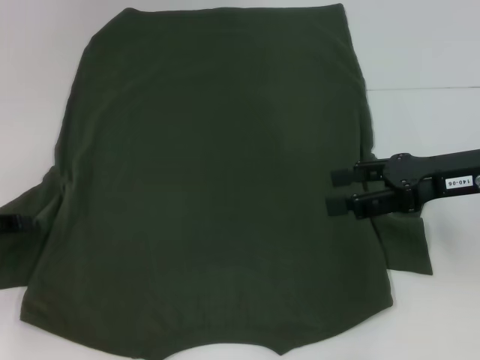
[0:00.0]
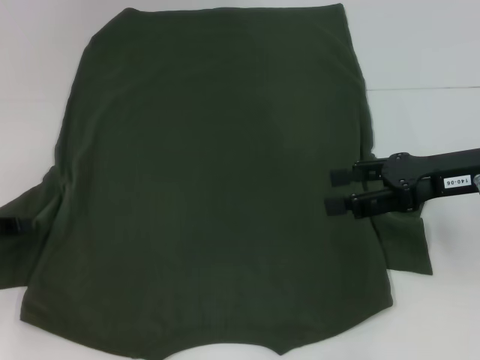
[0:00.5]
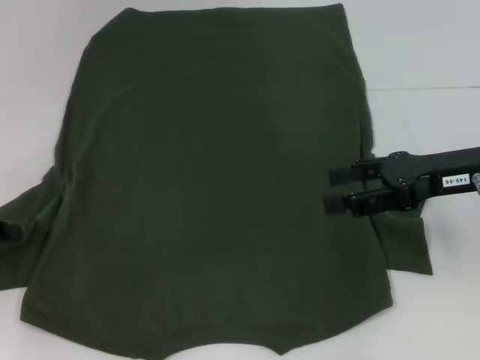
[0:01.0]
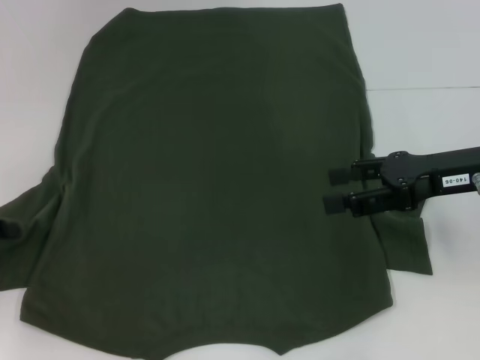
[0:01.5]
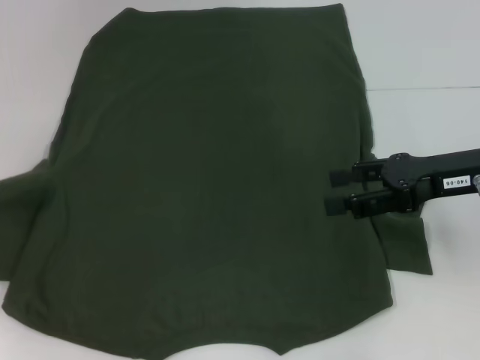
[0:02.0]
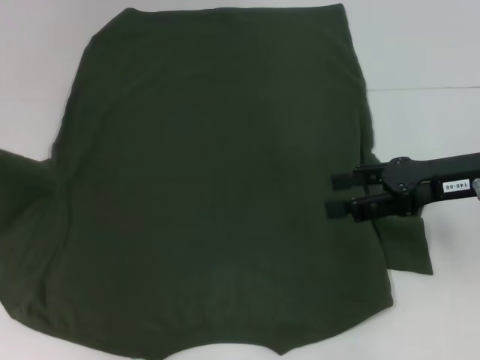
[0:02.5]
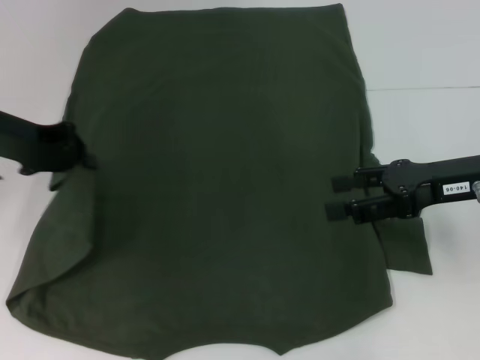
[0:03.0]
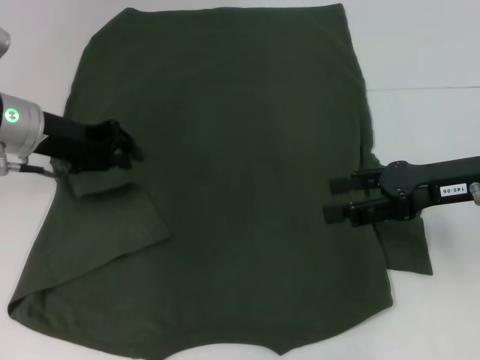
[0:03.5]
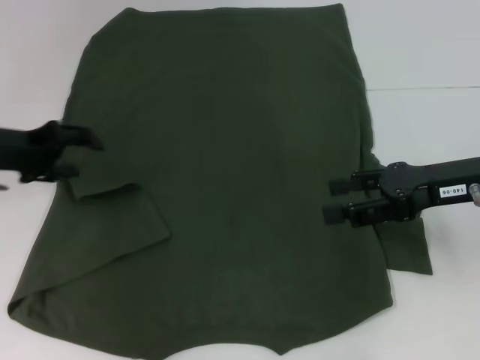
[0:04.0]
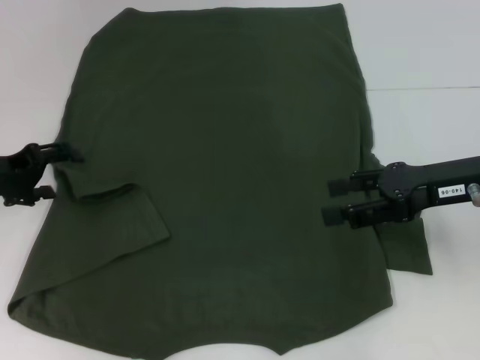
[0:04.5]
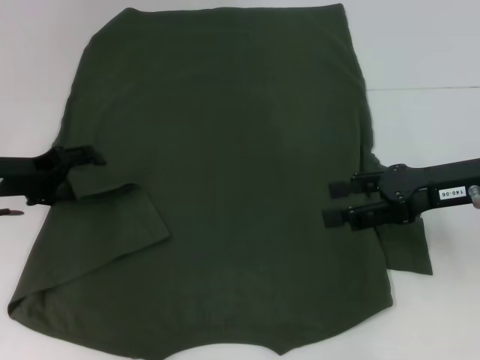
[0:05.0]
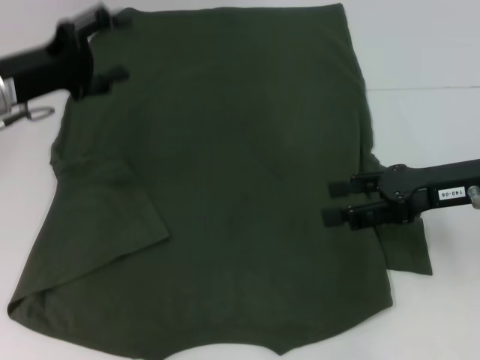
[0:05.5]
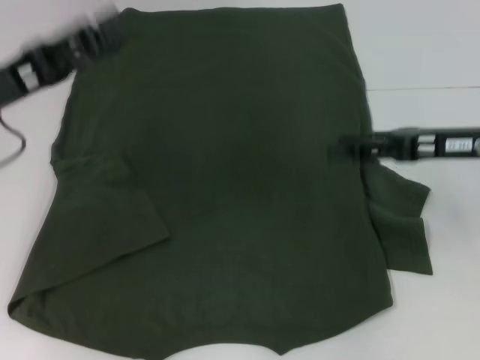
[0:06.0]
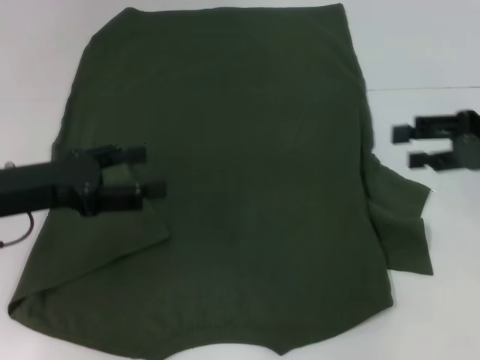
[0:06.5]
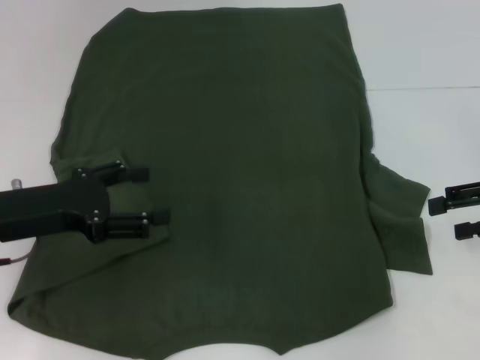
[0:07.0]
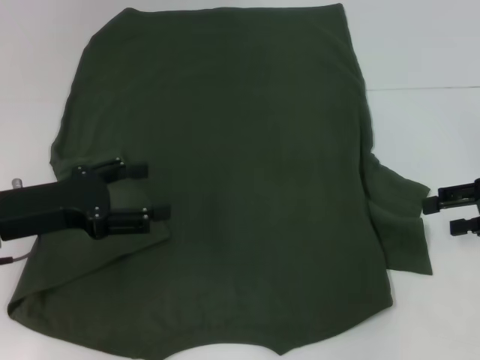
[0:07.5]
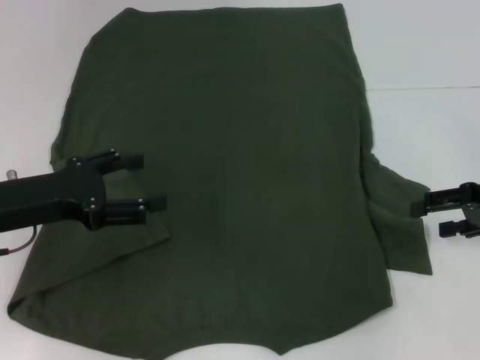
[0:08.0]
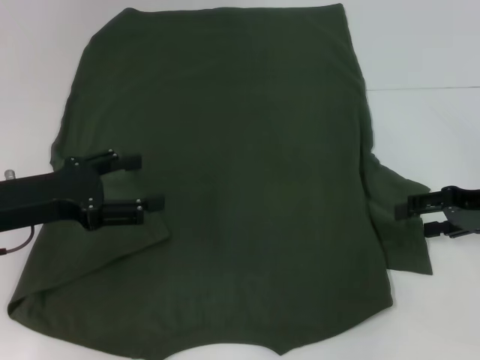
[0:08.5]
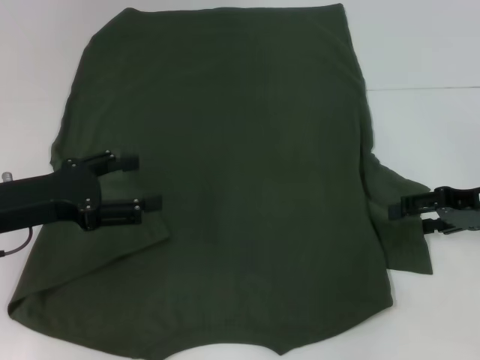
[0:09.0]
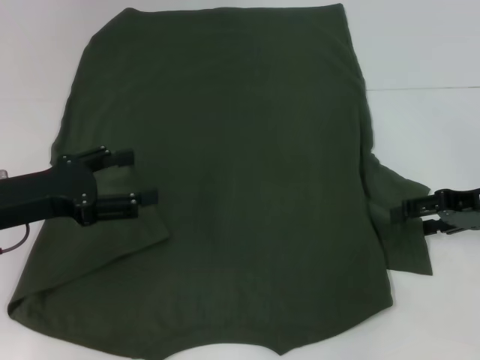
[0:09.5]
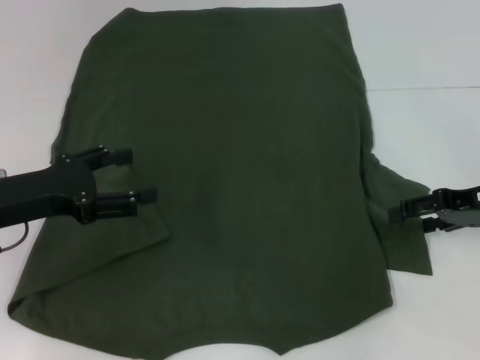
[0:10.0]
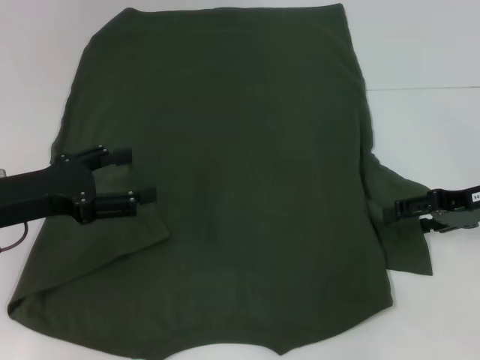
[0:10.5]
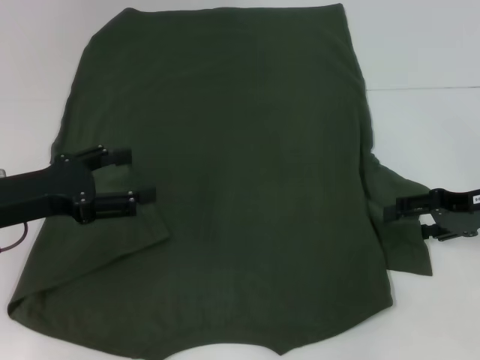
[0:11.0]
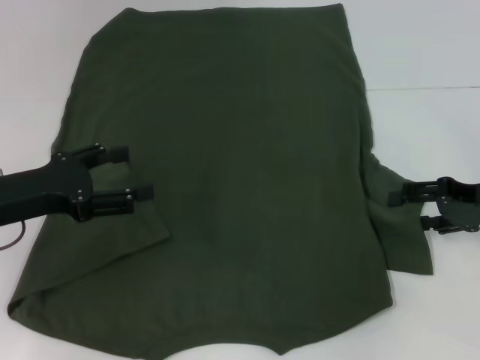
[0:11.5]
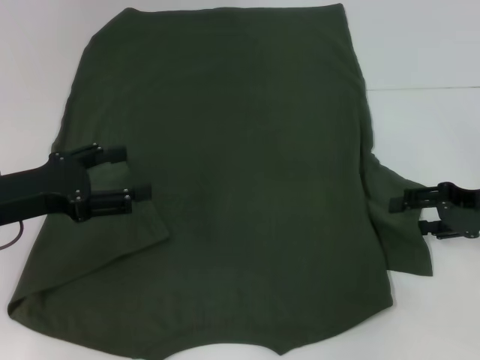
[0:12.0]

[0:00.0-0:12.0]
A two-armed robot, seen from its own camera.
Step, 0:00.0 to 0:05.0: Fold the bottom left sleeve with your left hand.
0:00.0 to 0:02.0: The left gripper shifts by roughly 5 cm, and closes.
0:02.0 to 0:04.0: The left gripper moves to the right and forward, some 15 cm, and opens up.
0:04.0 to 0:06.0: The left gripper shifts roughly 5 cm backward, and opens its fingers.
0:06.0 to 0:08.0: The right gripper moves to the right, about 5 cm, while the left gripper is displaced downward by some 5 cm.
0:08.0 to 0:12.0: The grippers stay close to where they were, moving slightly.

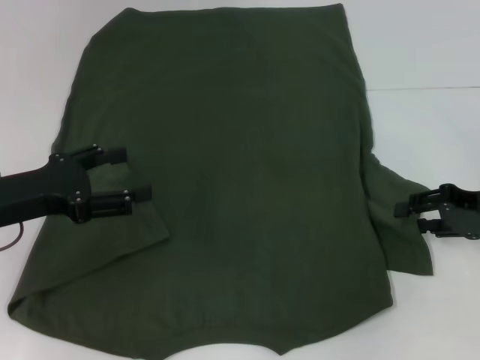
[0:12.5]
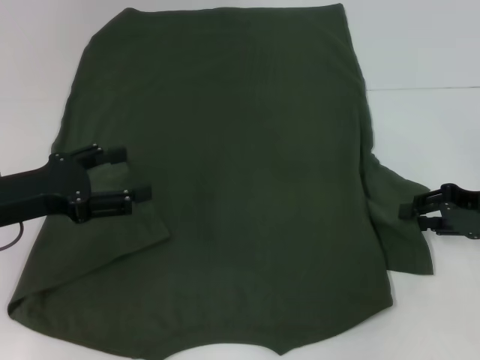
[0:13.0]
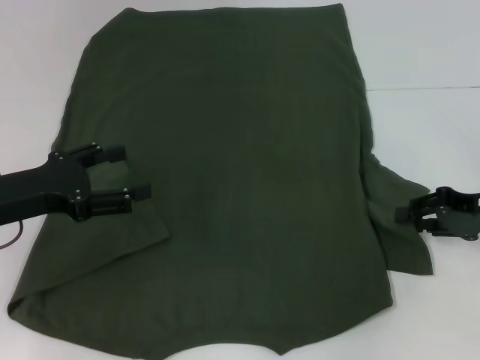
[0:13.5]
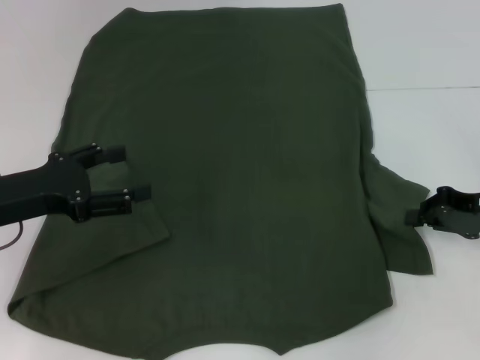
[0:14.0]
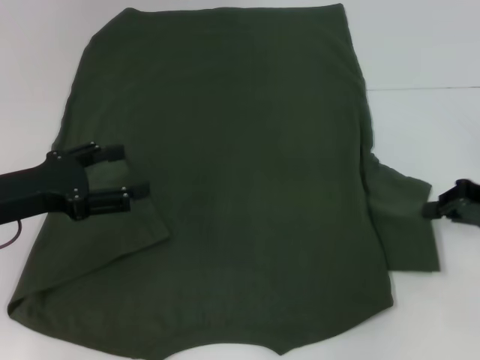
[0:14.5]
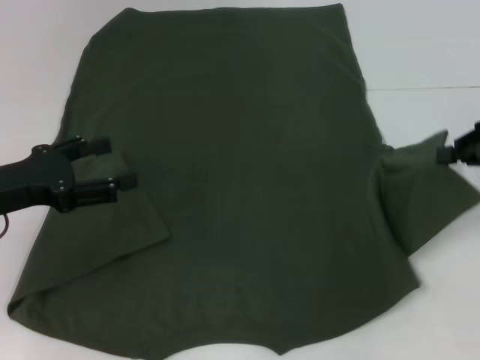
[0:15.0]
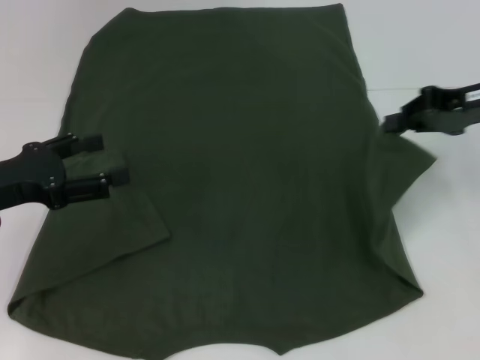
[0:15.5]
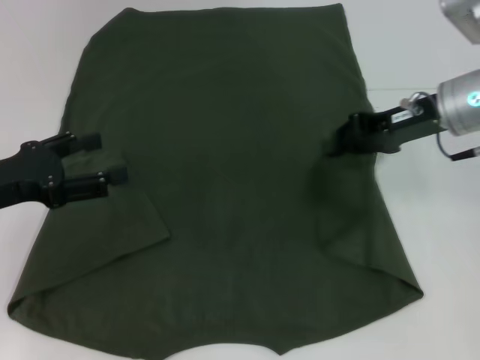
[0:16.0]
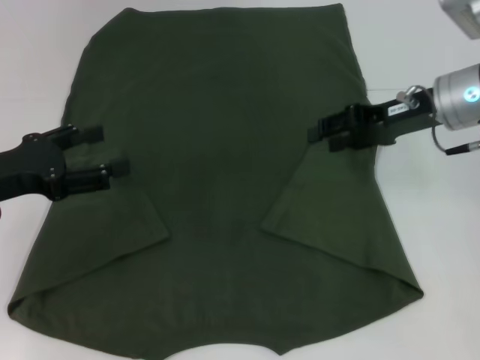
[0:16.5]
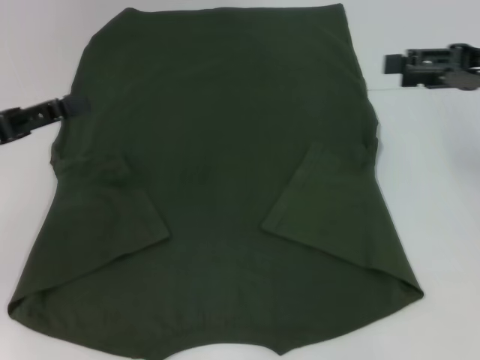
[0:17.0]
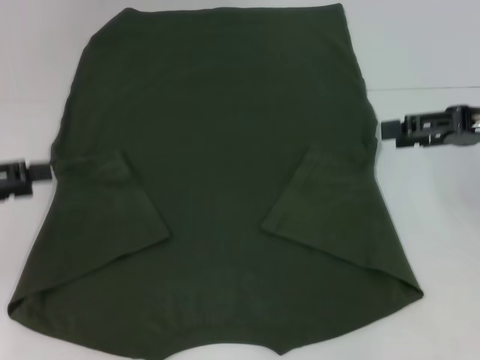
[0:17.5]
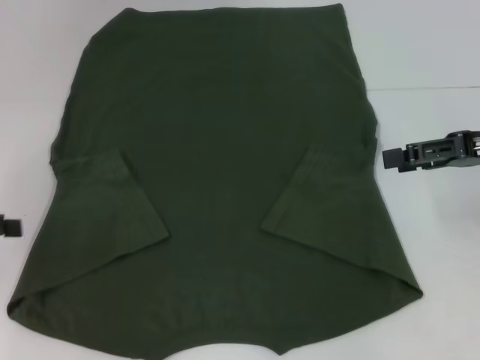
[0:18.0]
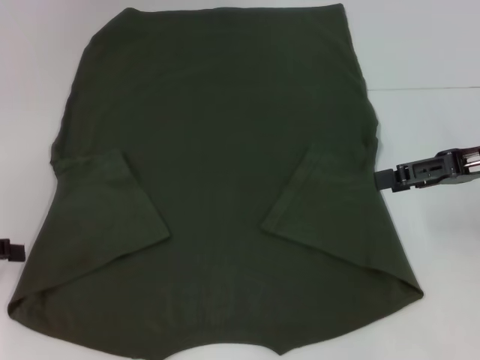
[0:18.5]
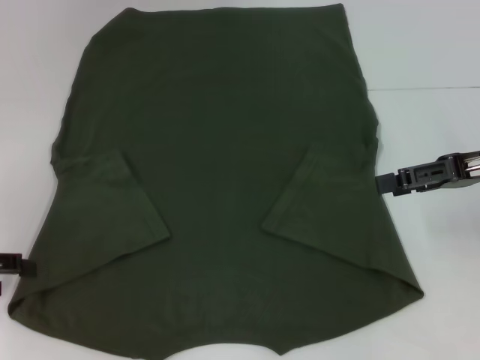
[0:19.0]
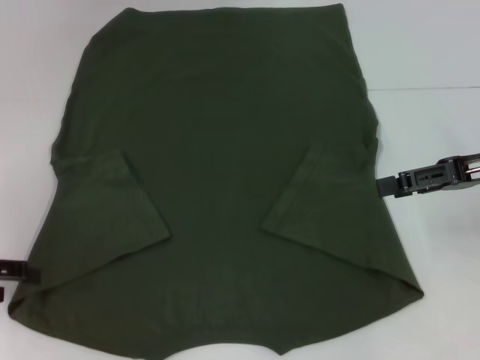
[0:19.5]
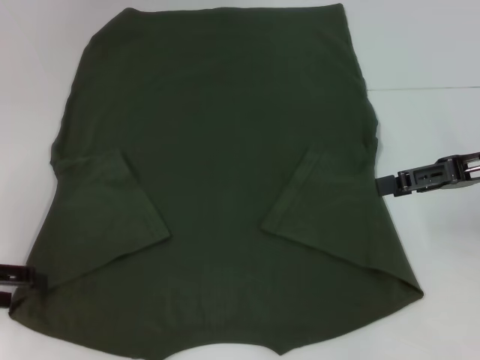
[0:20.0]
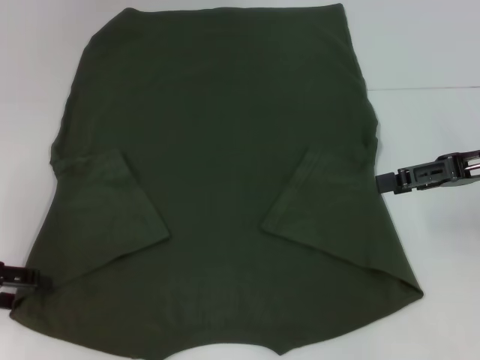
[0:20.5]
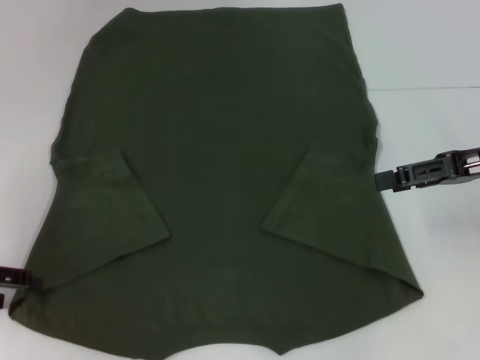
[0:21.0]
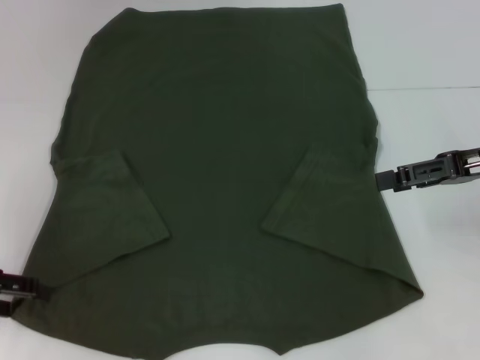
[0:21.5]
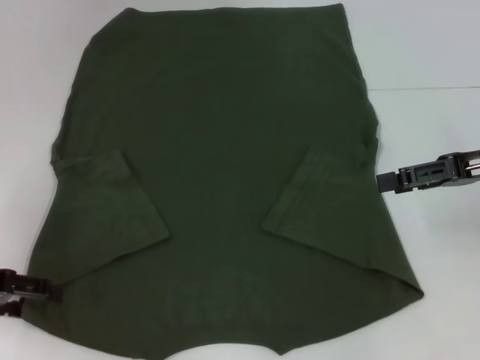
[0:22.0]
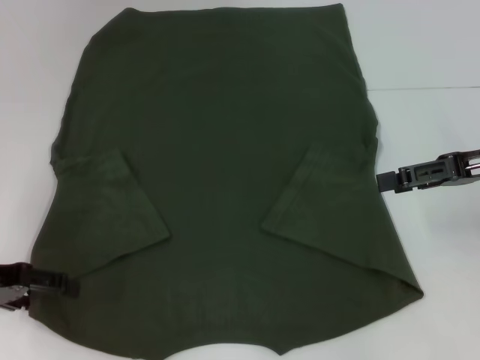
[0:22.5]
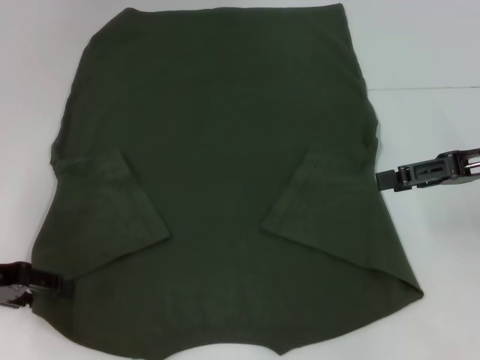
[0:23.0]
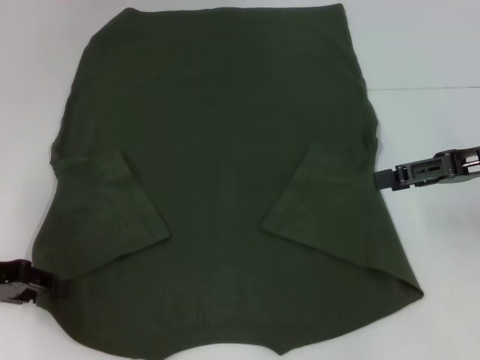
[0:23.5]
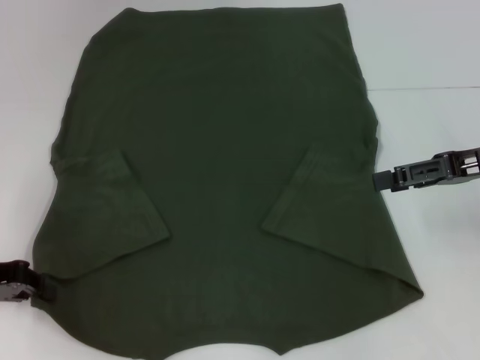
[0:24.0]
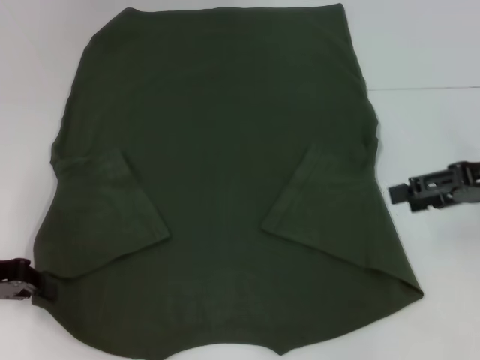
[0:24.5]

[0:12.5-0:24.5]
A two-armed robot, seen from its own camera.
Step, 0:12.5 to 0:16.0: Fold the bottom right sleeve with your right hand.
0:12.5 to 0:14.5: The right gripper closes up.
0:14.5 to 0:16.5: The right gripper shifts some 15 cm to the left, forward and upward.
0:16.5 to 0:18.5: The right gripper shifts roughly 10 cm to the right and backward, and opens up; the left gripper travels to the left by roughly 10 cm.
0:18.5 to 0:22.5: There are only small adjustments of the grippers.
0:22.5 to 0:24.5: The left gripper closes up.

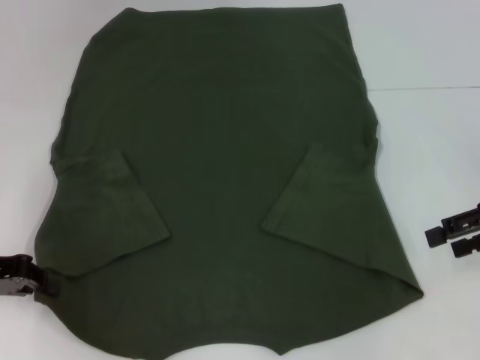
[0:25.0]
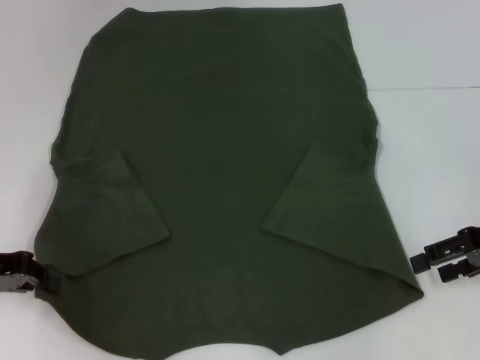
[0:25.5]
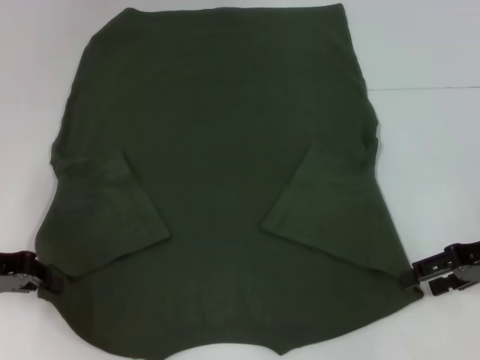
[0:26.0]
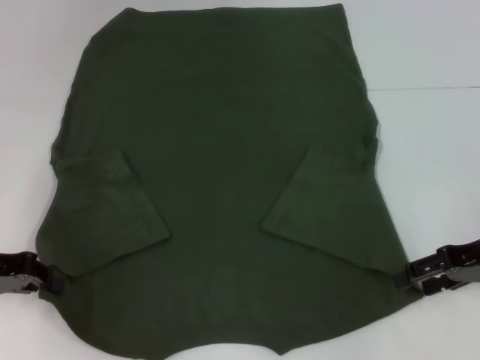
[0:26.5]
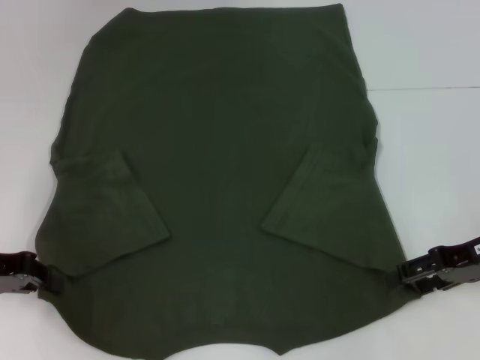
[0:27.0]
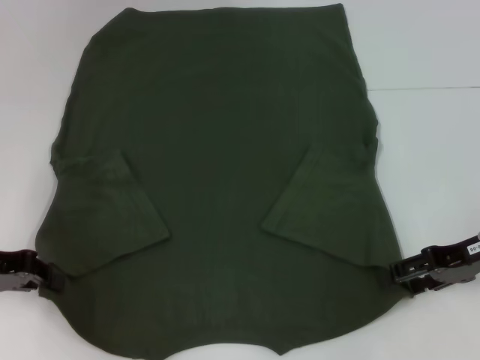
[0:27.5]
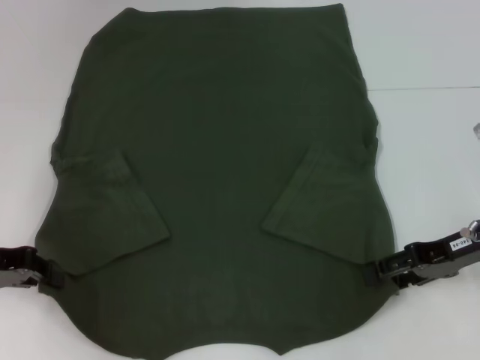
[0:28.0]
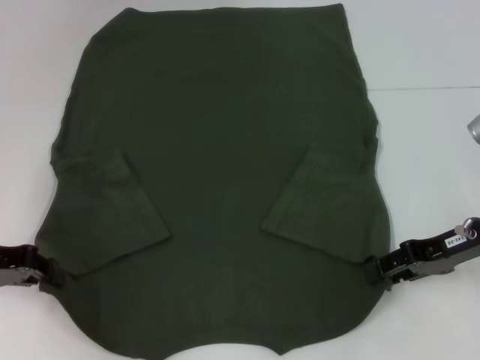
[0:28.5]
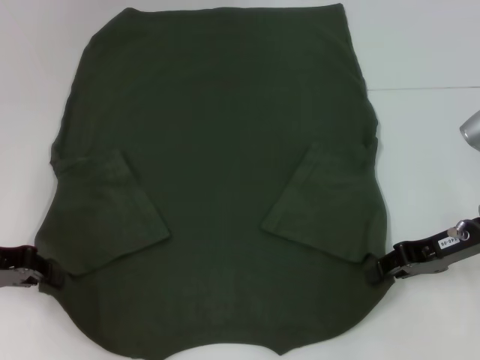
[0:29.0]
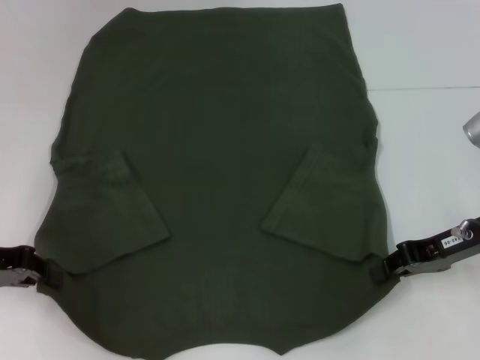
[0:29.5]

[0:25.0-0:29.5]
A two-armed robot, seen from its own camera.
Step, 0:25.0 to 0:29.0: Grab the bottom right corner with your right hand.
0:25.0 to 0:27.0: The right gripper goes about 5 cm downward.
0:27.0 to 0:29.5: The right gripper closes its fingers.
